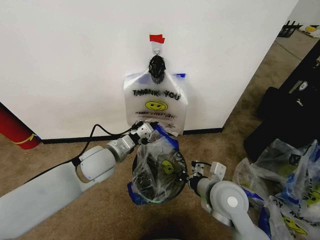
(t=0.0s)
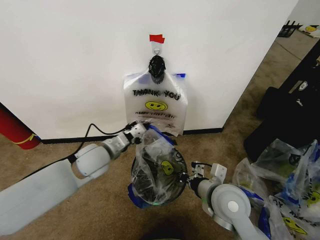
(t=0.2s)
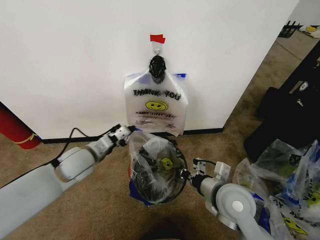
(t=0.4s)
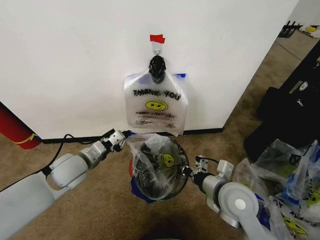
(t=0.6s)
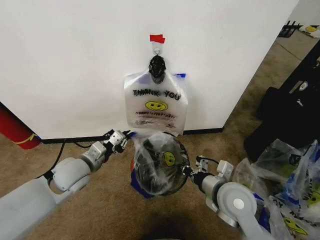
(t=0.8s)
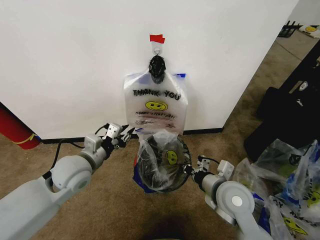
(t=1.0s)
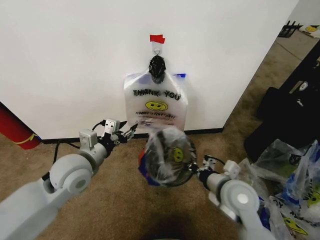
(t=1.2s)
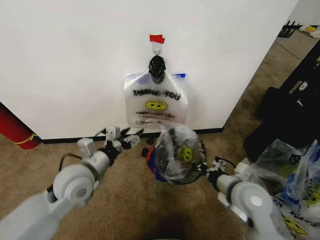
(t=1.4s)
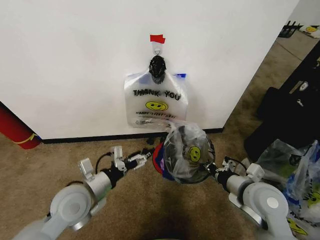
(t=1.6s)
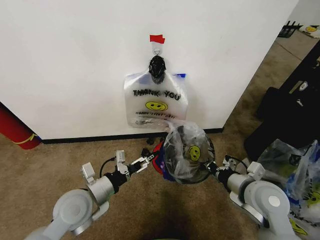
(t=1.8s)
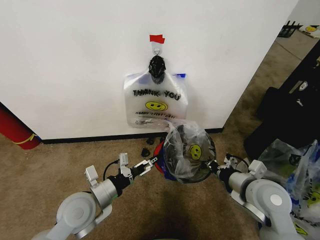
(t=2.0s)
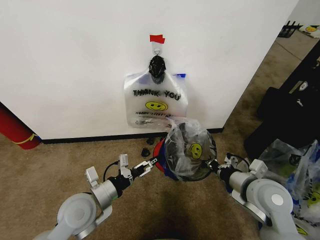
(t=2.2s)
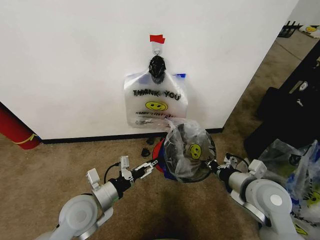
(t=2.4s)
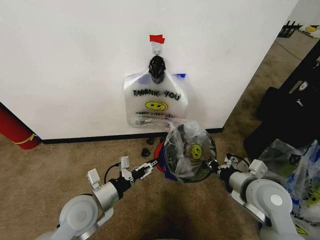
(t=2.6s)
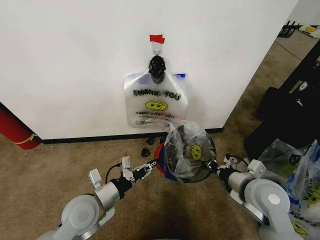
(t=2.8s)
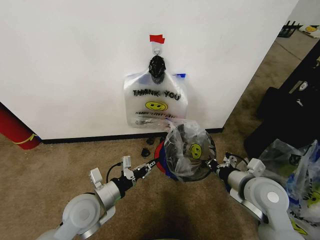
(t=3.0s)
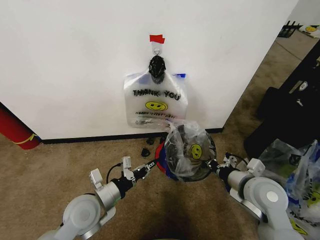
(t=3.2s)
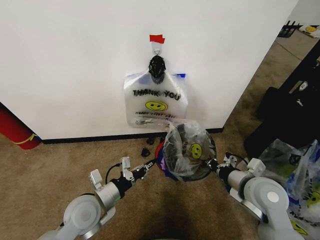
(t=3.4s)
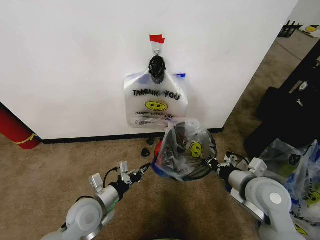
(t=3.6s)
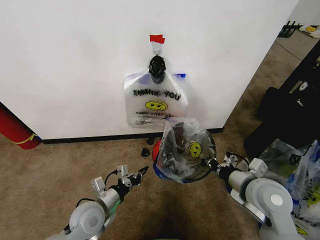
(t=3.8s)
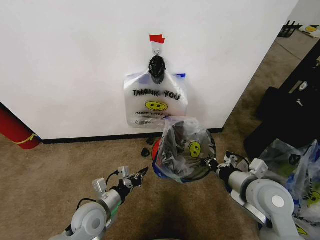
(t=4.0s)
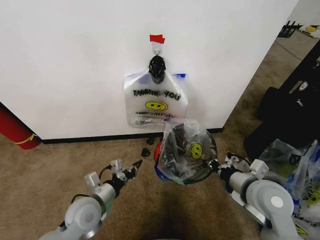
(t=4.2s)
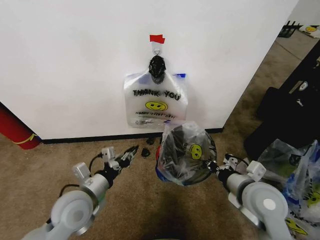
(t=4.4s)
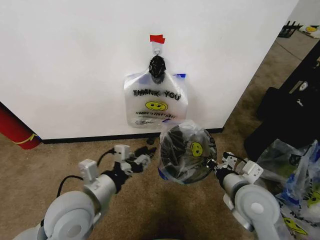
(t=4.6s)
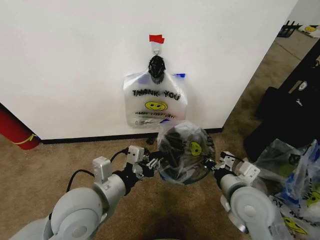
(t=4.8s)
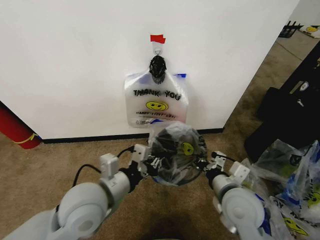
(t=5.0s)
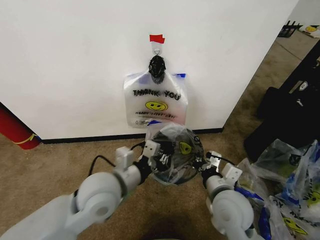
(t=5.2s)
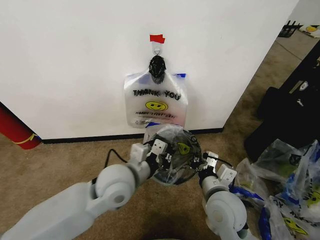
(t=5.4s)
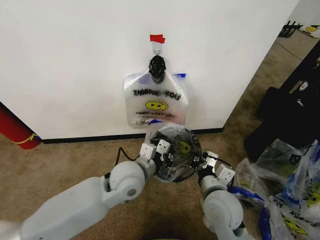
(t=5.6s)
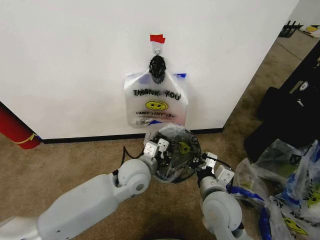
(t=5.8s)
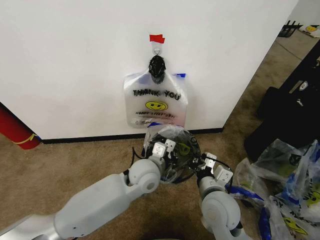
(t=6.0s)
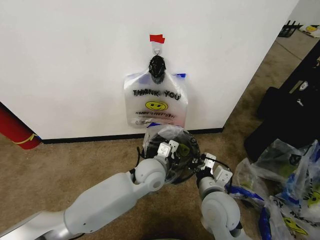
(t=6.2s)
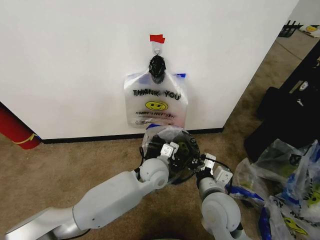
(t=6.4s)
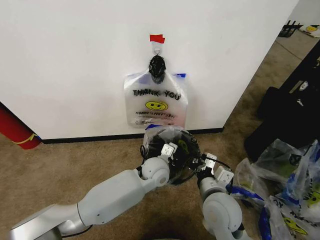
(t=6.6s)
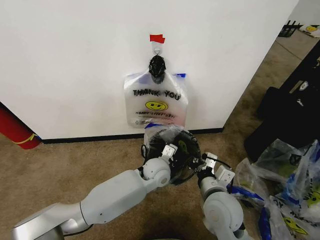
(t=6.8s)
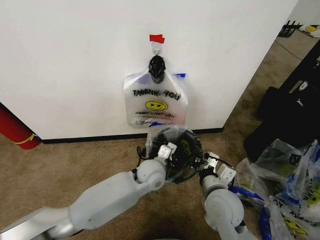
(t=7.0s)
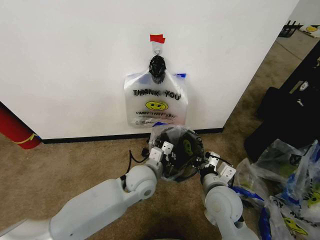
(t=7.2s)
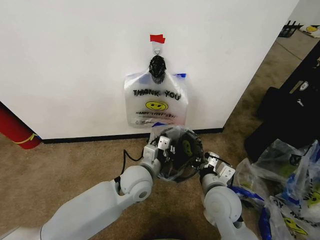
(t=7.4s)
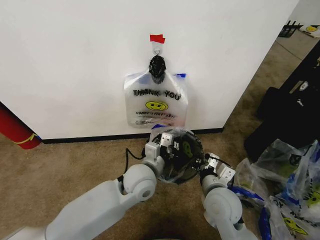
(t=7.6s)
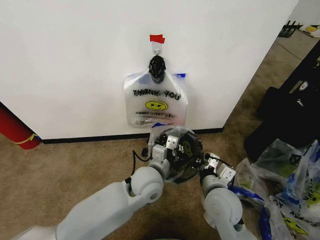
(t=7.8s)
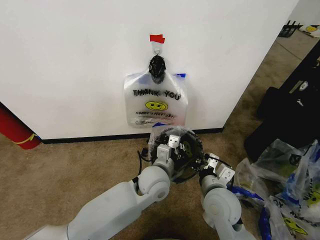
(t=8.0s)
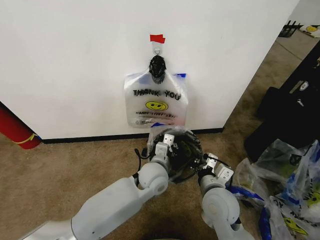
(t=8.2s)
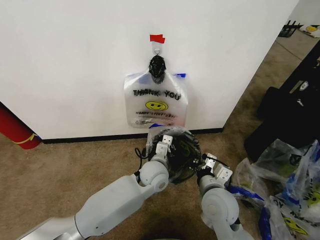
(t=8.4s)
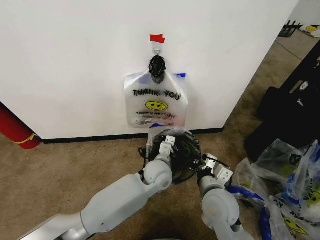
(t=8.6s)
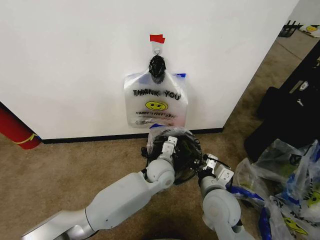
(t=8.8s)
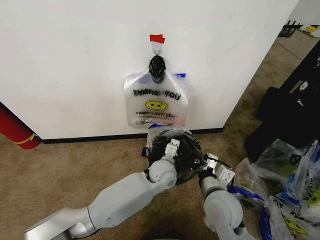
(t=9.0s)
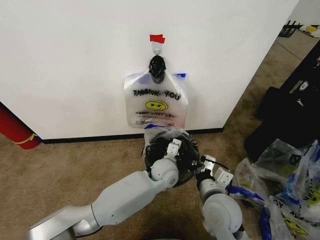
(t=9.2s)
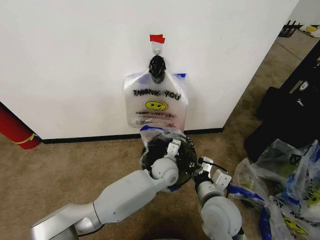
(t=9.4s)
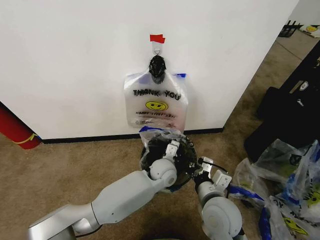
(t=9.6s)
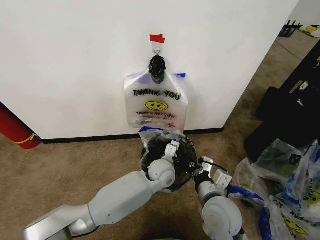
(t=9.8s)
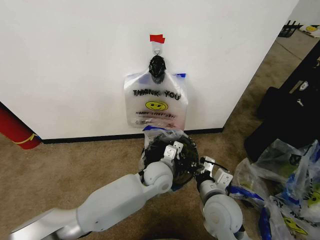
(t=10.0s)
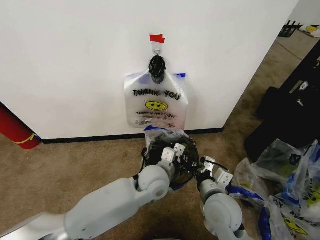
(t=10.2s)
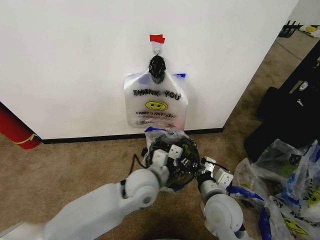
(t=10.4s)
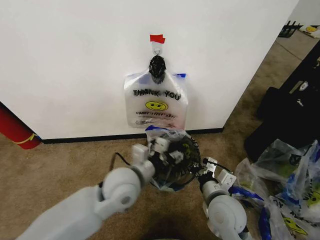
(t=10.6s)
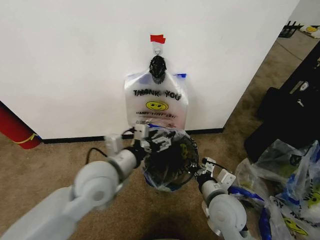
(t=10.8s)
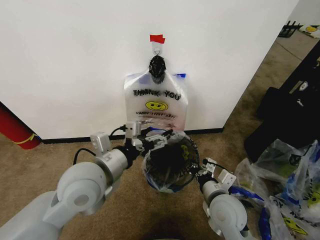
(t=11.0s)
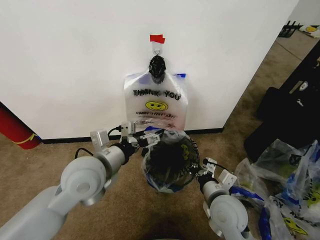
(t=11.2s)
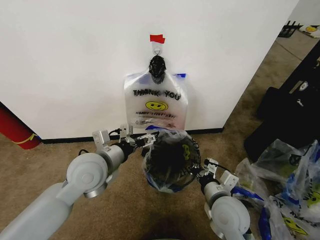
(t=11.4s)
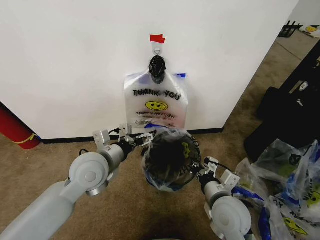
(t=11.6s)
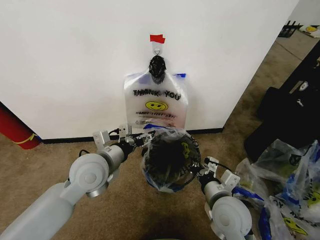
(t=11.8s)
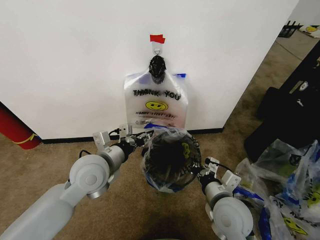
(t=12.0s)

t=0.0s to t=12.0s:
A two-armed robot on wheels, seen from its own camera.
Task of the whole recording: Pick up the garbage bag from the wall and place it over the trash bin.
t=0.0s to t=1.6s: The left gripper travels backward by approximately 10 cm, and opens up, while the right gripper goes about 10 cm to the right.
t=1.6s to t=3.0s: The left gripper closes its fingers.
t=4.4s to t=6.0s: The left gripper travels to the right and forward by some 20 cm; the right gripper heads to the left, covering roughly 10 cm.
t=7.6s to t=9.0s: The left gripper travels to the right, downward and forward by about 10 cm.
t=9.0s to t=10.4s: The left gripper is displaced backward, upward and to the left by about 10 cm, and opens.
t=10.4s to t=12.0s: The left gripper moves to the left and upward, about 15 cm, and opens, then closes again.

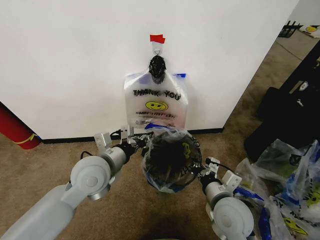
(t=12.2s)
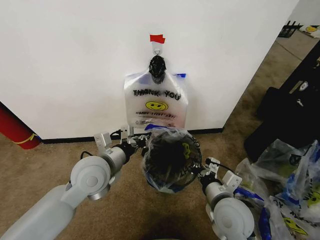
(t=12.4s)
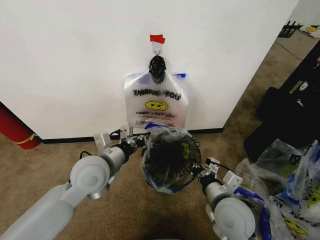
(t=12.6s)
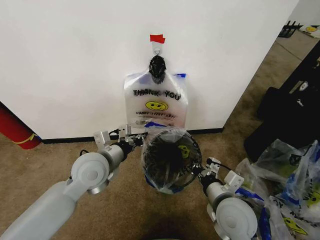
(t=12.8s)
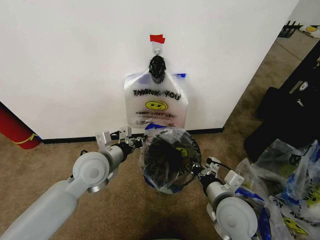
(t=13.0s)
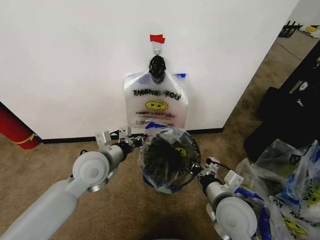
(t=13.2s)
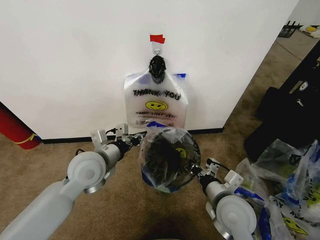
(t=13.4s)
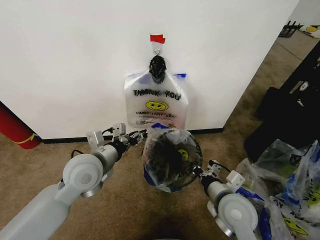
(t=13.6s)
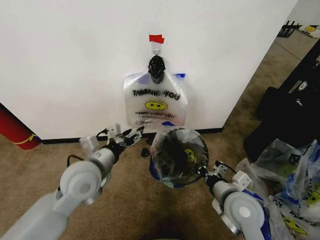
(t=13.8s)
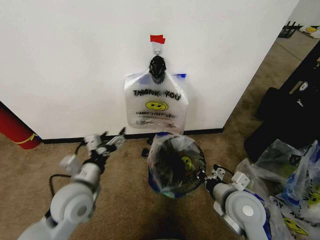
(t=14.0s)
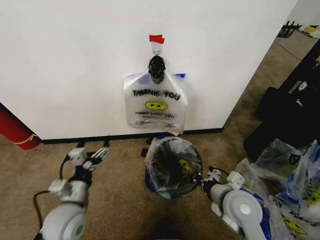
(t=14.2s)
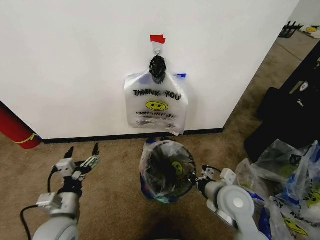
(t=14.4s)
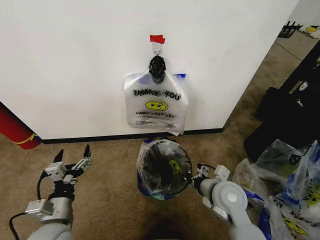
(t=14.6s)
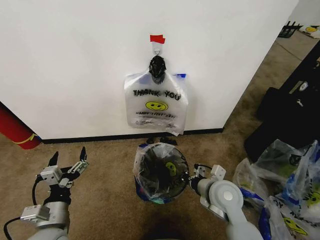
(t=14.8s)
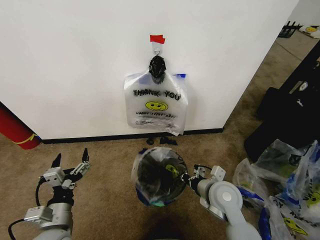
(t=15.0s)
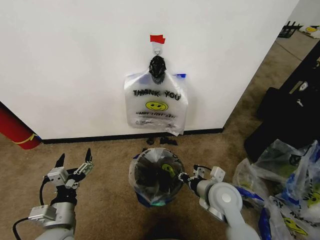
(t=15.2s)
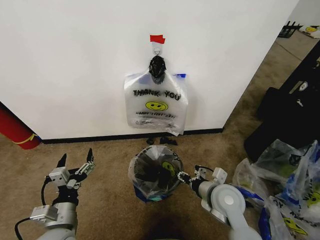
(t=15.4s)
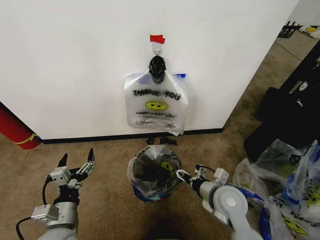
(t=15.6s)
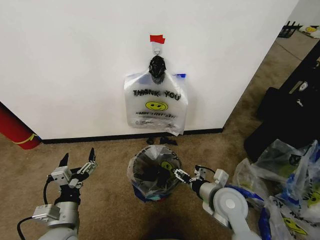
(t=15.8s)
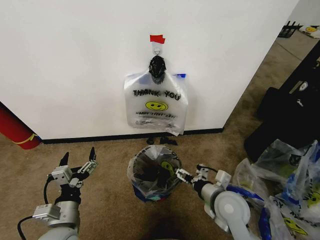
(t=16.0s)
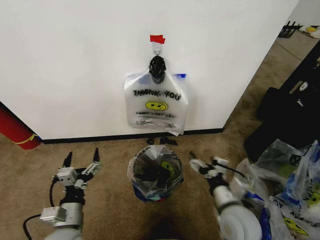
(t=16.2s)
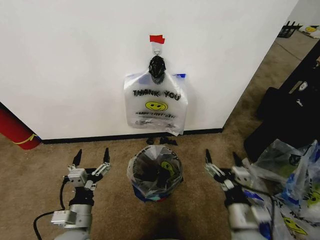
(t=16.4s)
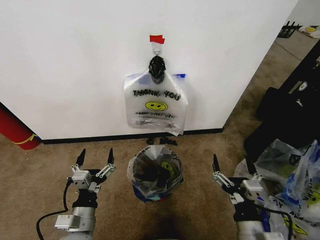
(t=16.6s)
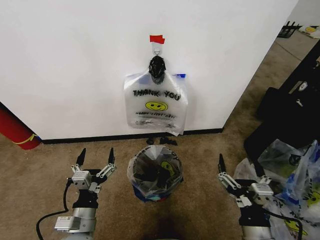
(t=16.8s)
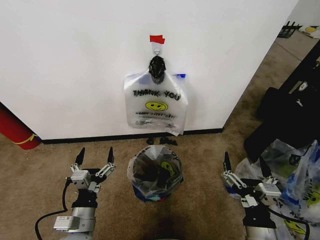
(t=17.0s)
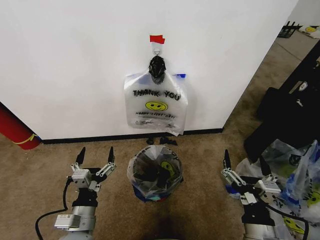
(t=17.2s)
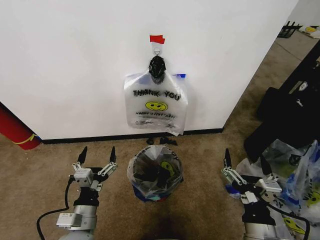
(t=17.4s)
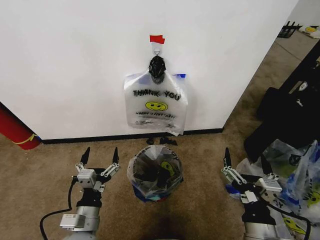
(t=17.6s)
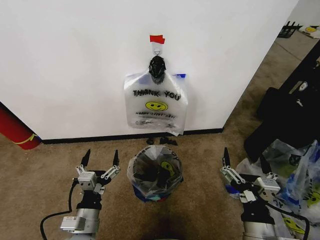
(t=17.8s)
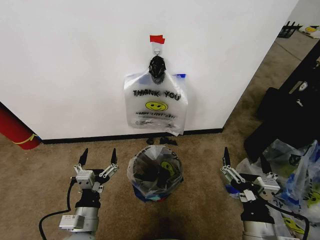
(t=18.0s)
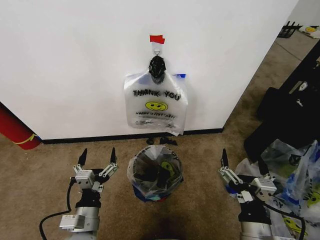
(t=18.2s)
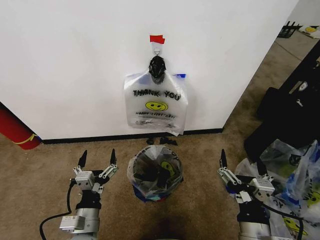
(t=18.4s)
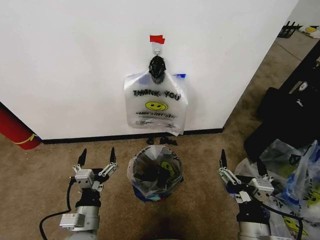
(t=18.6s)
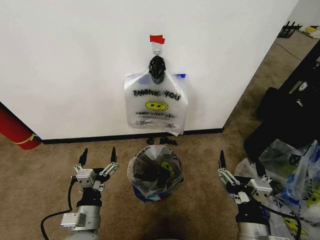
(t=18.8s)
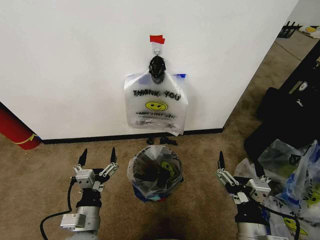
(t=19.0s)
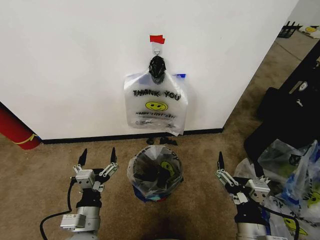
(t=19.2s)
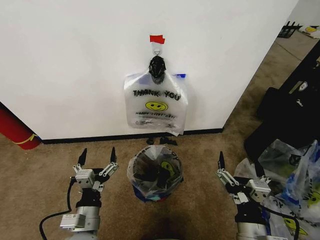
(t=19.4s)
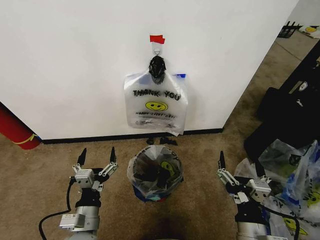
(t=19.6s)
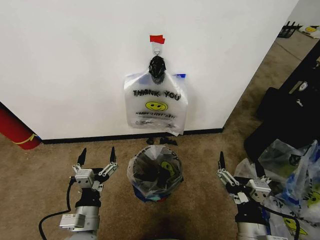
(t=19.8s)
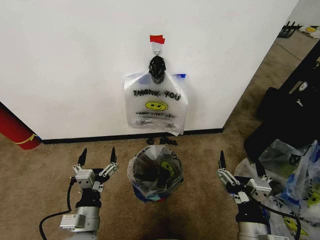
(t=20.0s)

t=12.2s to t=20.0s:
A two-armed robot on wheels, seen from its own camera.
Task of the whole recording: Pick up the garbage bag from the wall and place it over the trash bin.
t=12.2s to t=13.8s: The left gripper opens its fingers.
t=13.8s to t=15.4s: The left gripper goes some 15 cm backward, downward and to the left. Meanwhile the right gripper changes place by some 5 cm, and opens its fingers.
t=15.4s to t=16.8s: The right gripper goes approximately 15 cm backward, and opens, while the left gripper is displaced to the right by roughly 5 cm.
t=16.8s to t=18.4s: The grippers stay close to where they were, moving slightly.
t=18.4s to t=20.0s: The two grippers keep their place.
